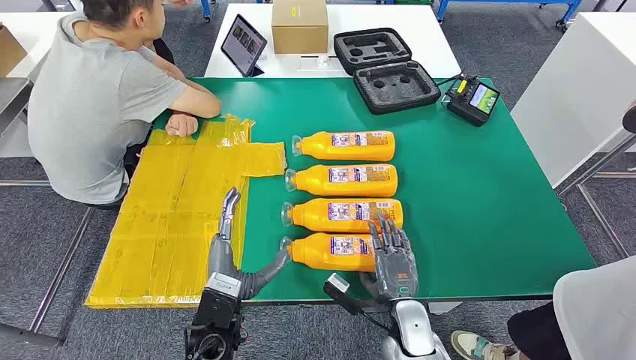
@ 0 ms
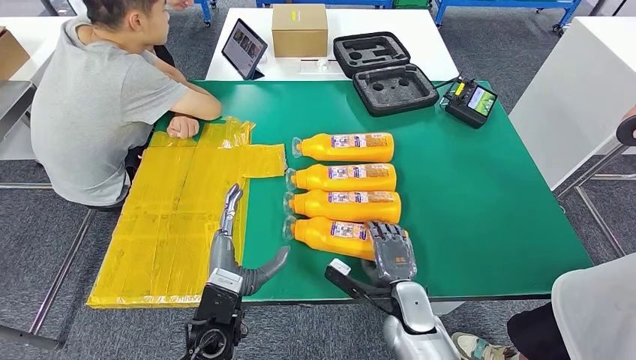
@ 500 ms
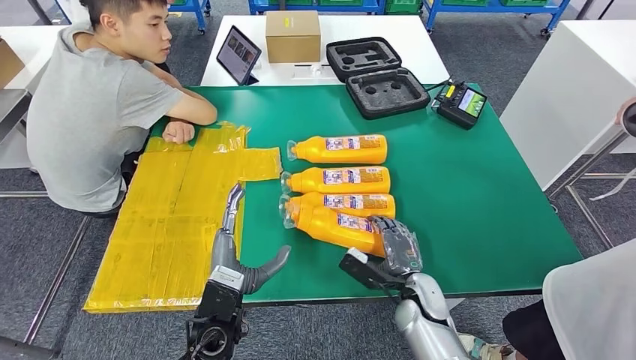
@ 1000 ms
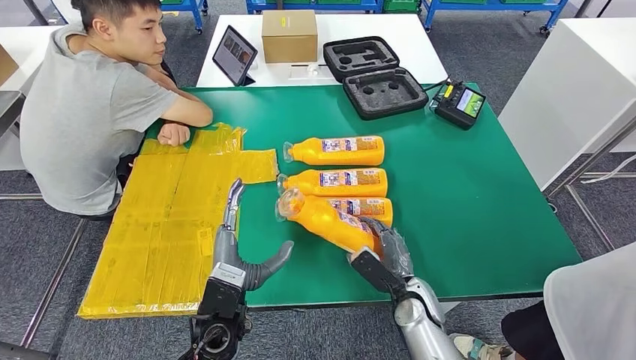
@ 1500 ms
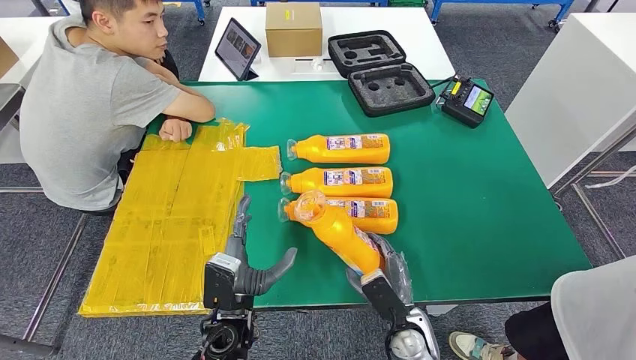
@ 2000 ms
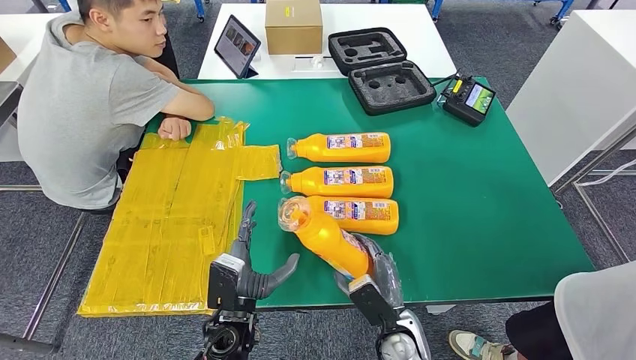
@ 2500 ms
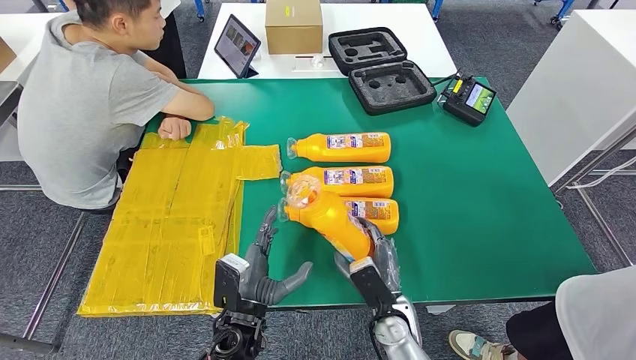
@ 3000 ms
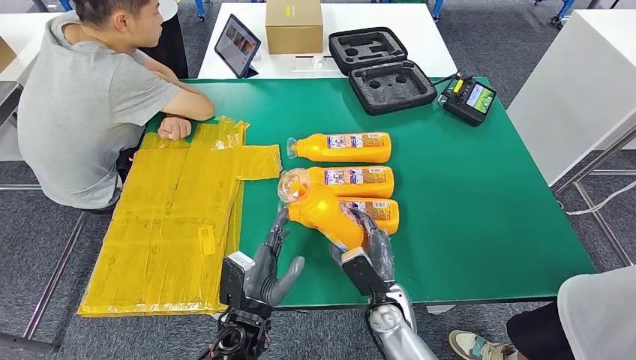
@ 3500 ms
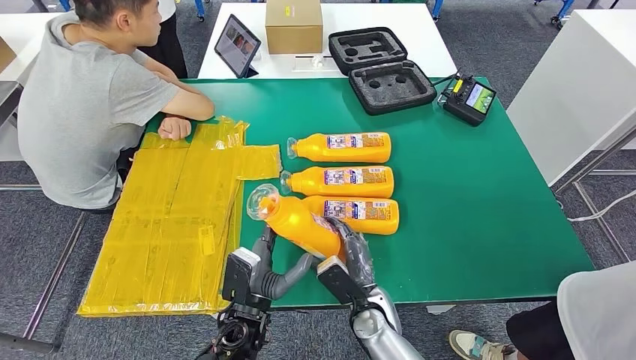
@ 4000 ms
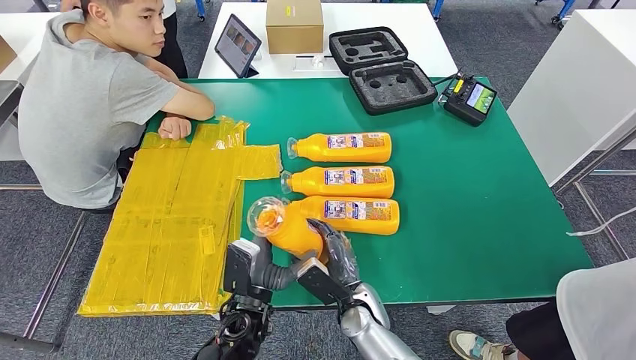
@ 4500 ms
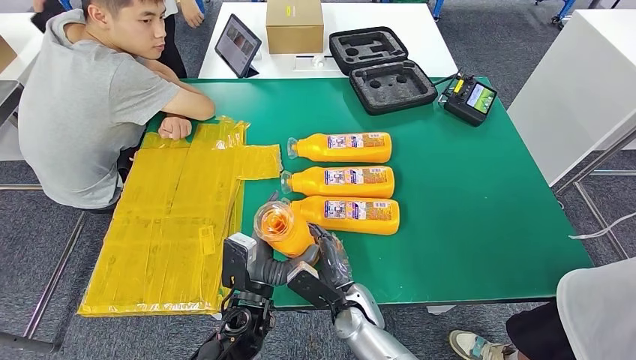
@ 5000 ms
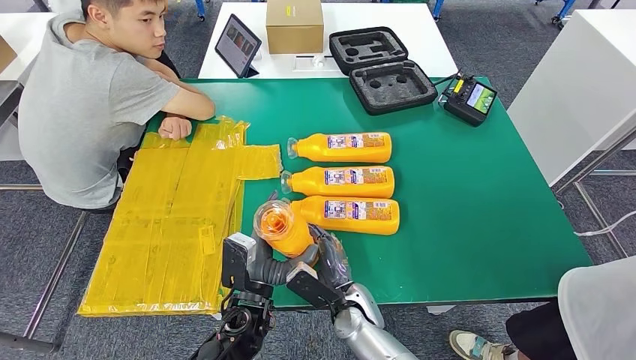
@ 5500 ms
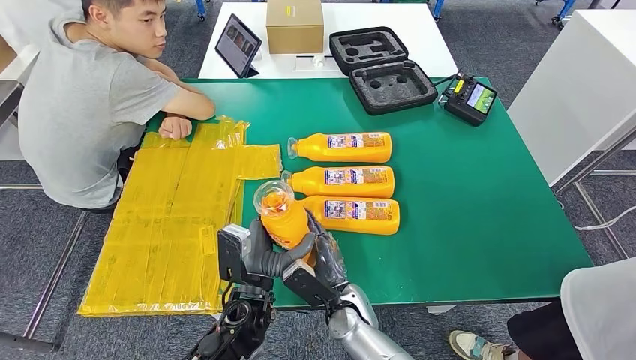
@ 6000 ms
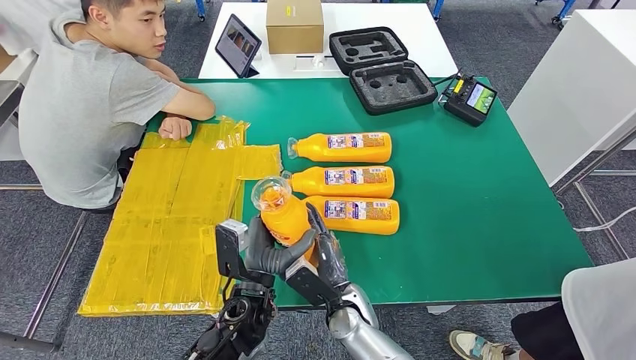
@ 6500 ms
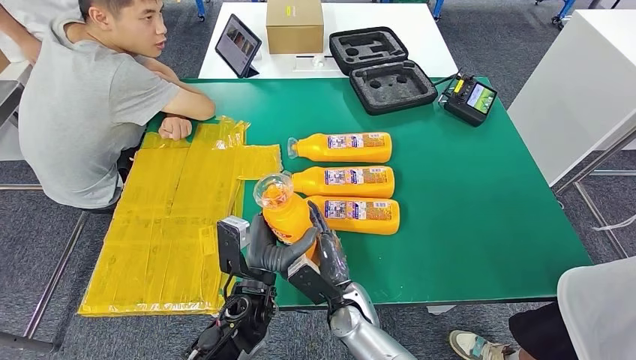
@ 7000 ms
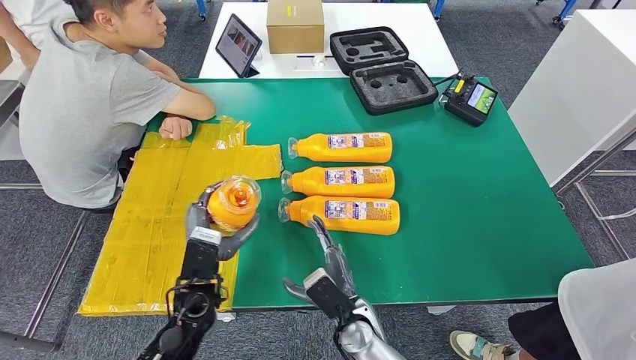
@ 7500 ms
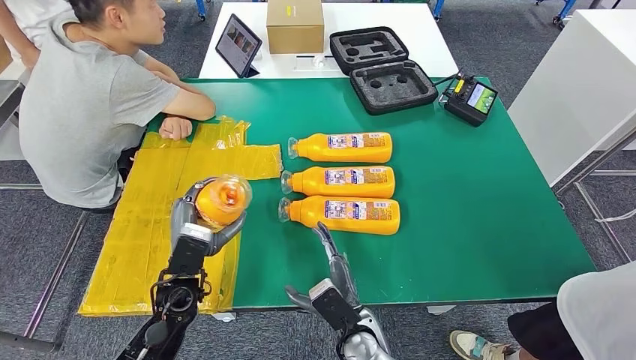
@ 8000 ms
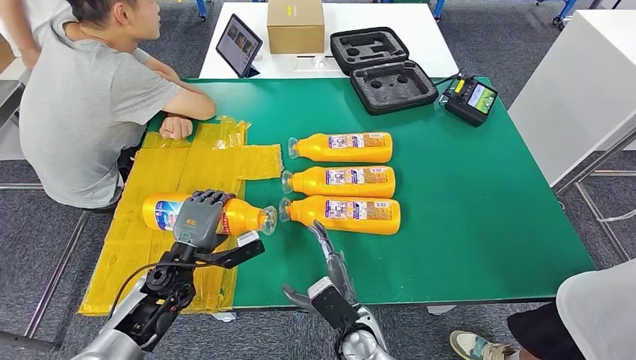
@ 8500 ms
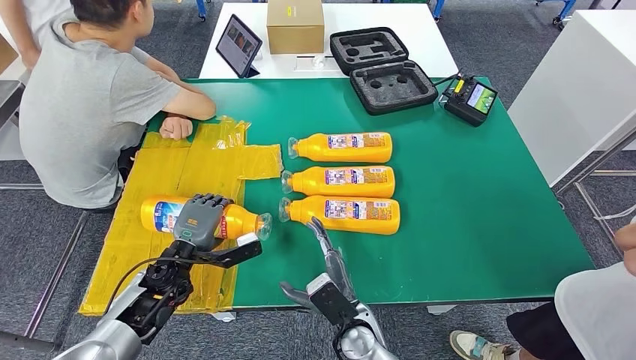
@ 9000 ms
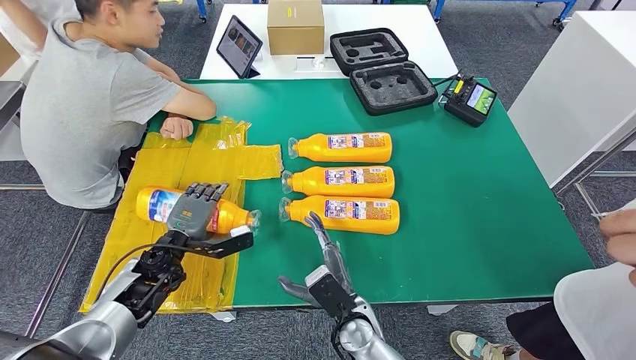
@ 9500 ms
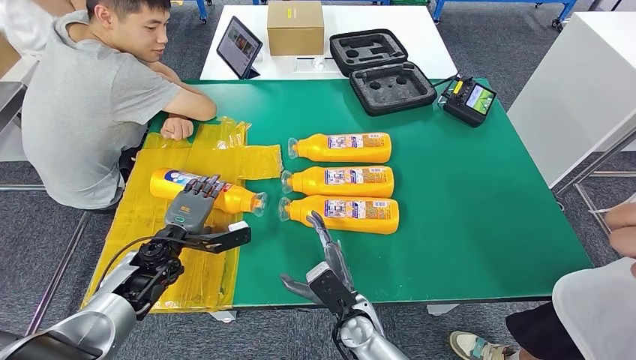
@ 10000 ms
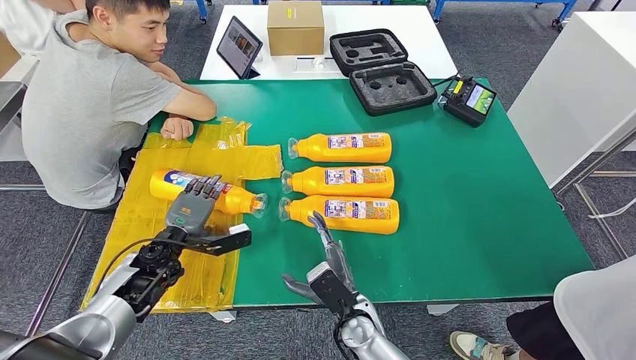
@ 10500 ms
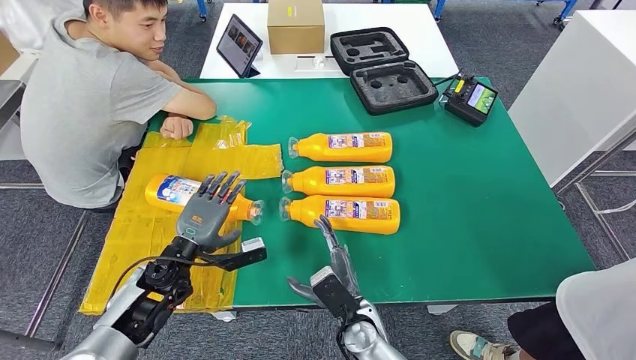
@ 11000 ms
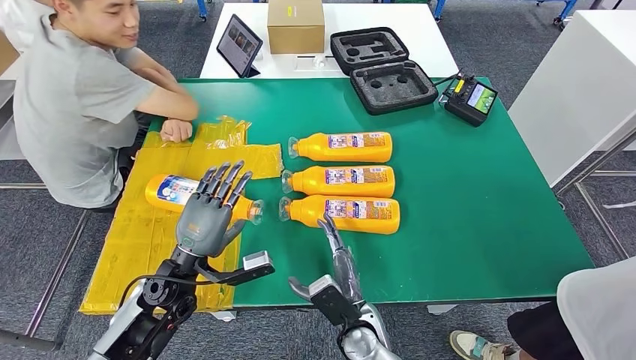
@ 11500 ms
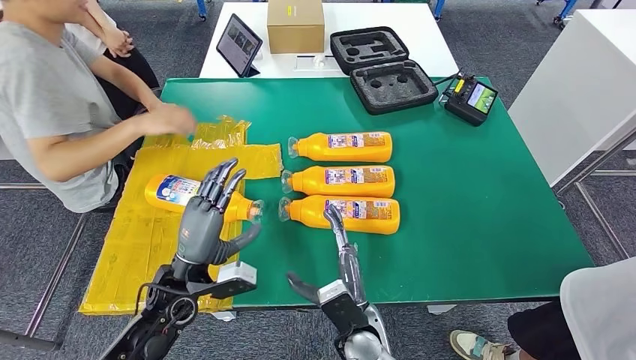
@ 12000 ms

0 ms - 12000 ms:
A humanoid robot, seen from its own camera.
Step, 0 ms - 5000 ms: Take the fast-moving consumer goods bottle from the table.
2000 ms - 4000 ms: The right hand moves to the left and forward, approximately 10 cm.
4000 ms - 6000 ms: The right hand shifts some 5 cm to the left.
6000 ms - 8000 ms: The left hand shifts some 15 cm to the left.
8000 ms - 10000 ms: The left hand travels forward and to the left by approximately 10 cm.

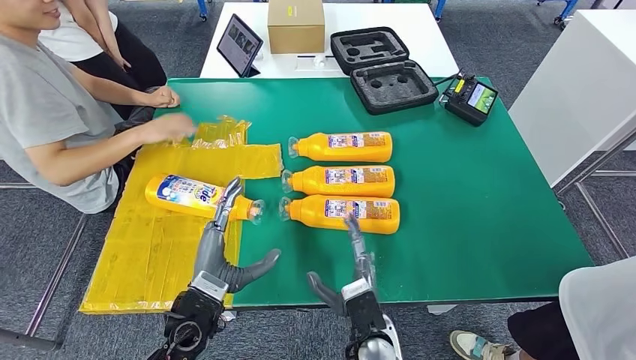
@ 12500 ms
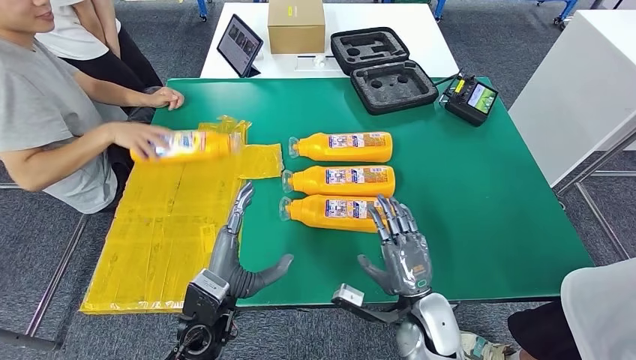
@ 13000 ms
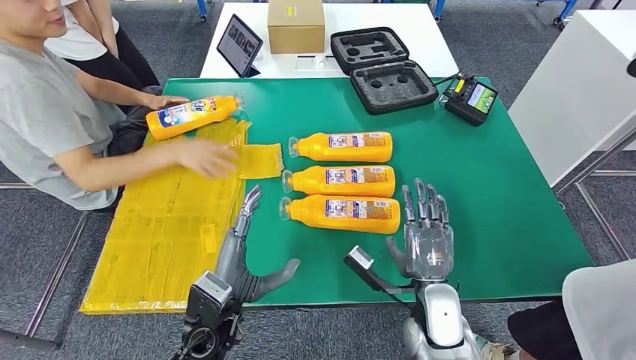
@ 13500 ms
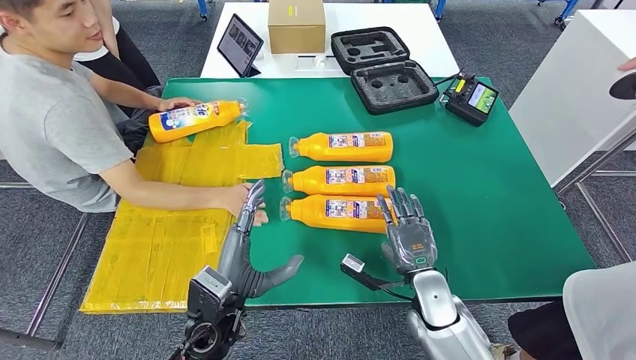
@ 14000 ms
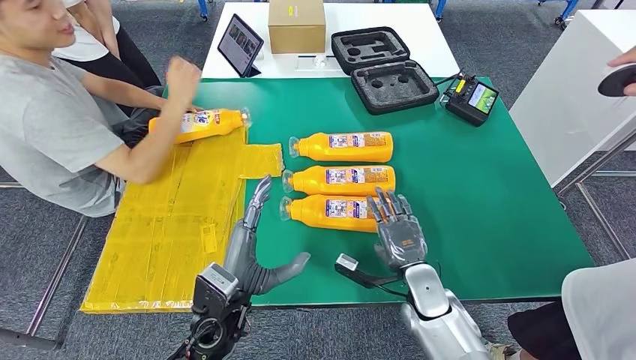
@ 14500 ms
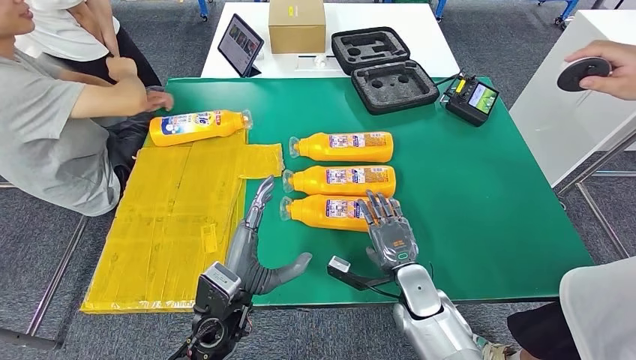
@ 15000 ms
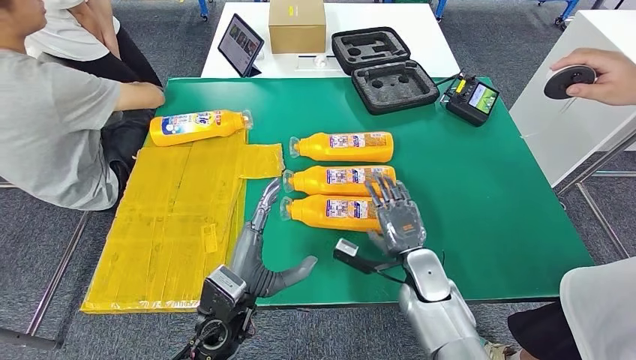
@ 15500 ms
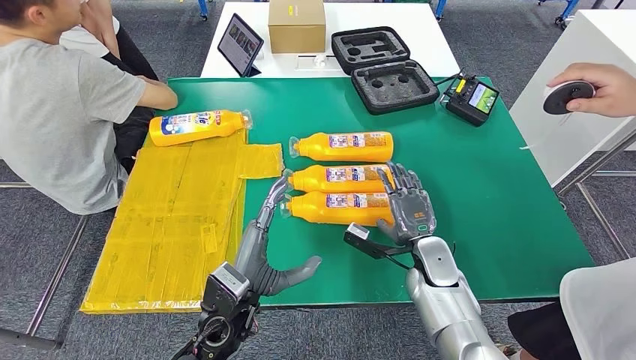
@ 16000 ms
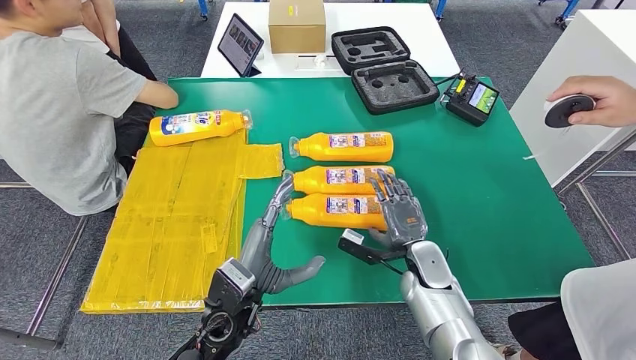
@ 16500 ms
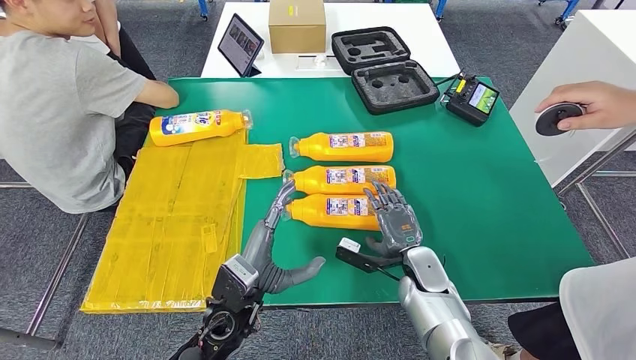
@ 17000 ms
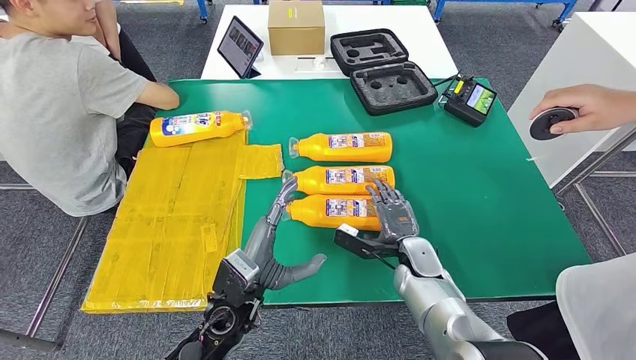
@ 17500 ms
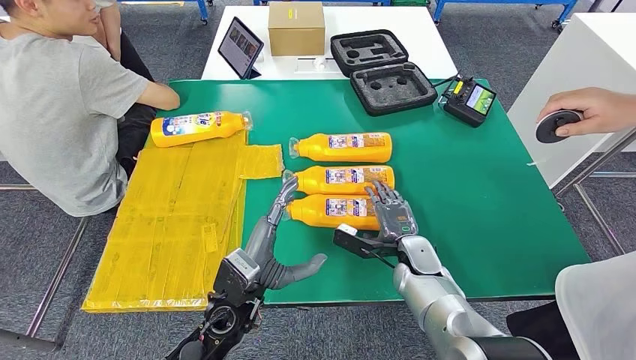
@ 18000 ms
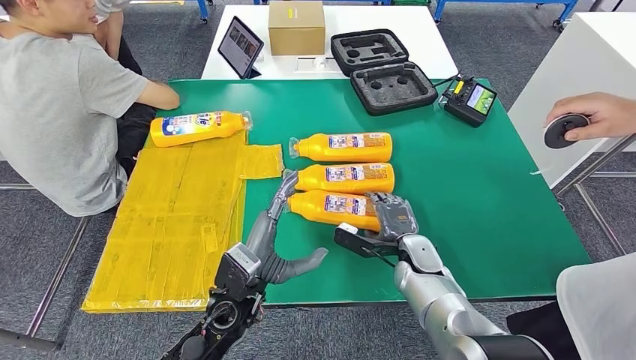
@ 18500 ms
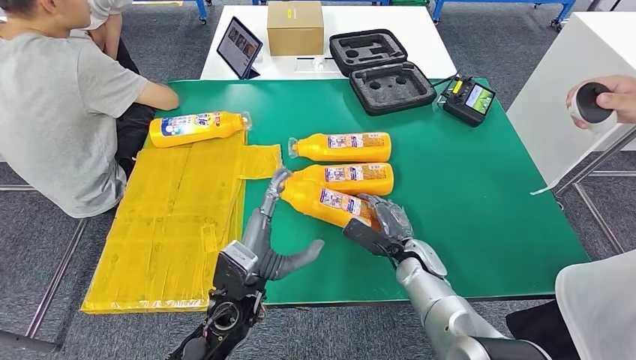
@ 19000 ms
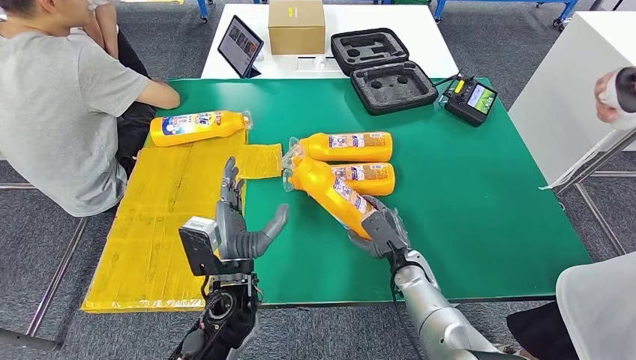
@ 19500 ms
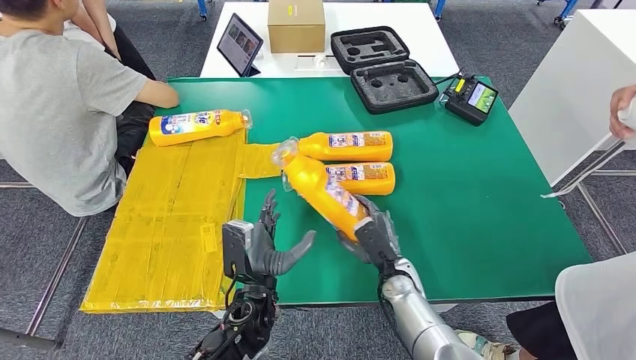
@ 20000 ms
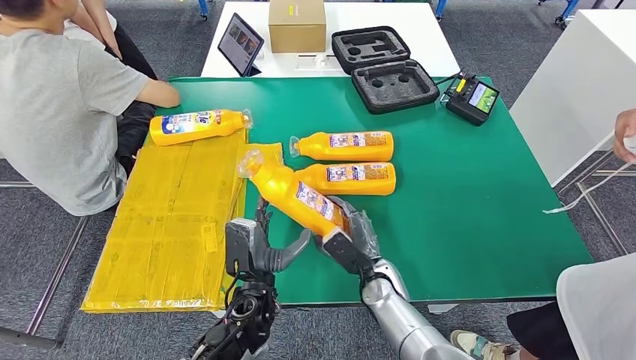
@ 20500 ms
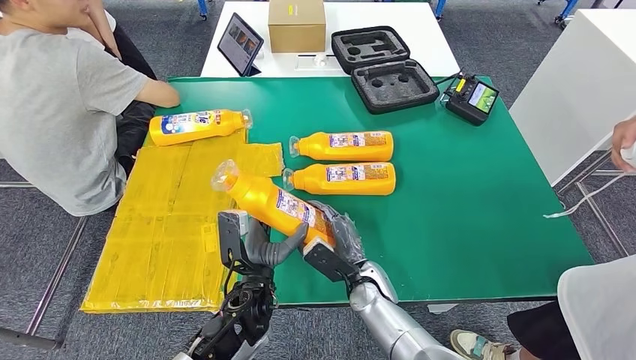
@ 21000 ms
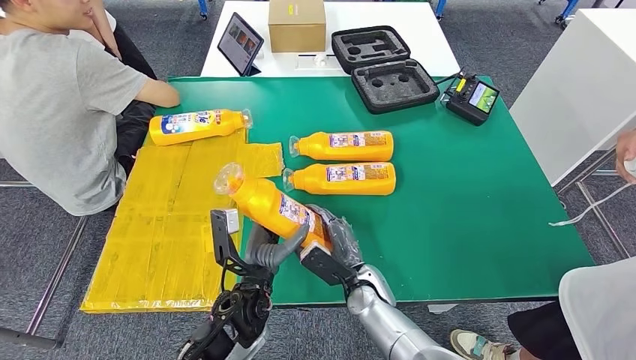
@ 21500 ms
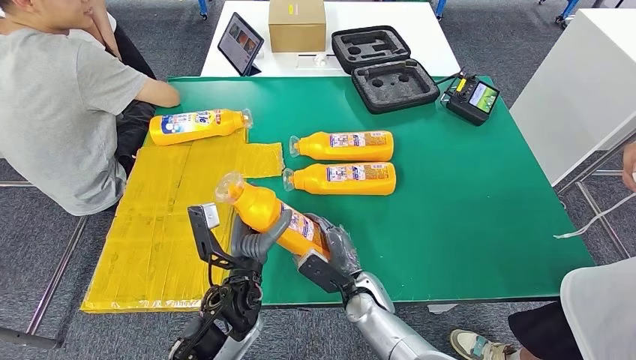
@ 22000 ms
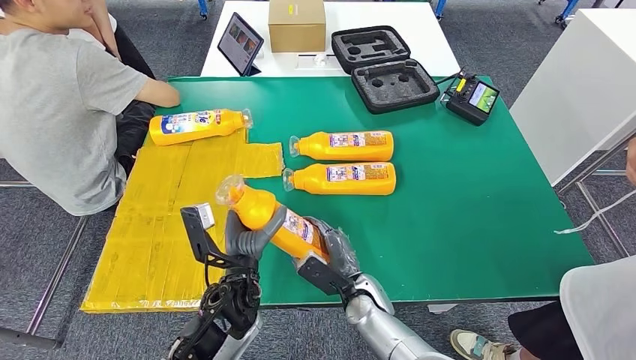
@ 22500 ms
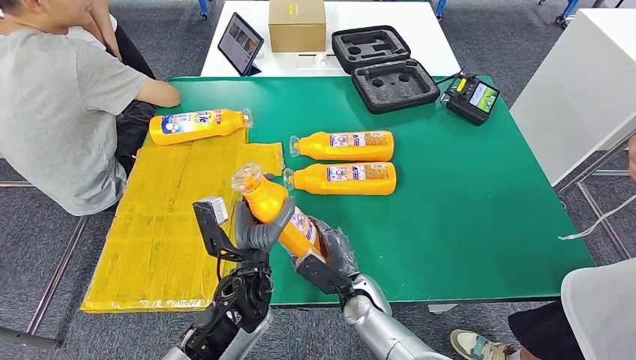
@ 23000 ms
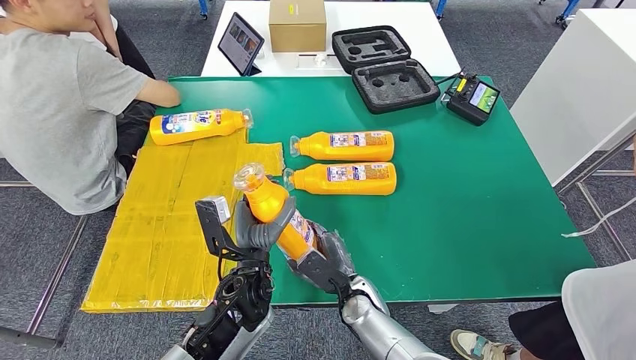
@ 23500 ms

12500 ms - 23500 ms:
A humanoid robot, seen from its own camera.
Step, 13500 ms - 21000 ms: Pick up the fast-moving consumer goods bottle from the table.
14500 ms - 16000 ms: The hands stay close to where they were, moving slightly.
20000 ms - 21500 ms: The right hand travels to the left by about 5 cm.
21500 ms - 23500 ms: The hands stay close to where they were, moving slightly.
